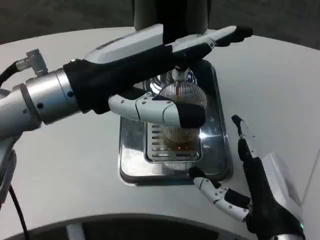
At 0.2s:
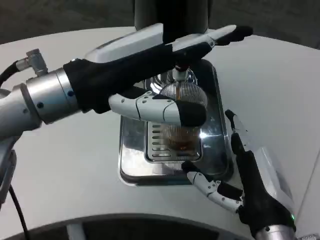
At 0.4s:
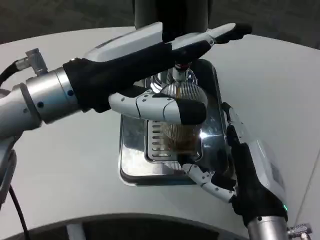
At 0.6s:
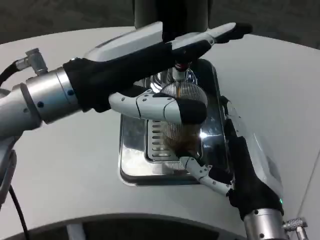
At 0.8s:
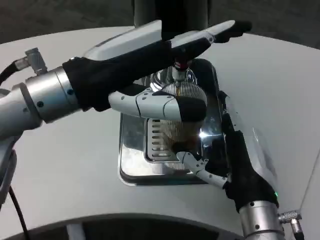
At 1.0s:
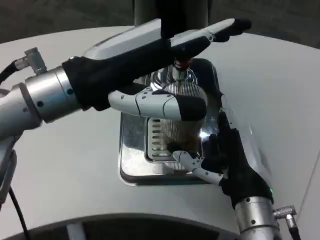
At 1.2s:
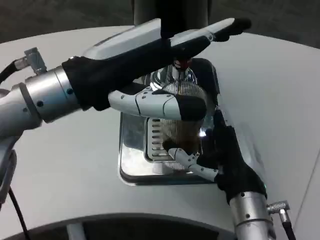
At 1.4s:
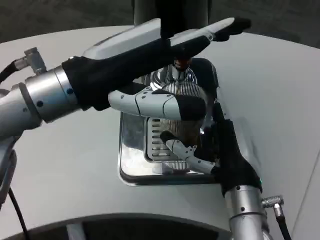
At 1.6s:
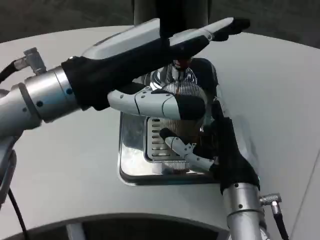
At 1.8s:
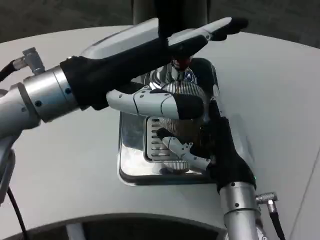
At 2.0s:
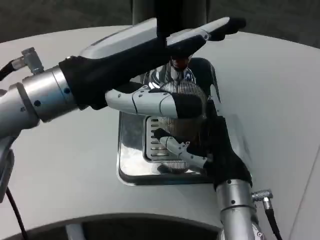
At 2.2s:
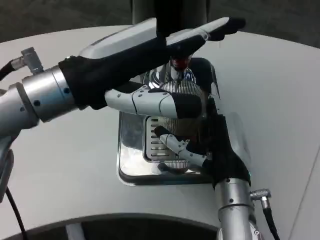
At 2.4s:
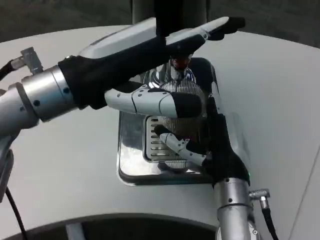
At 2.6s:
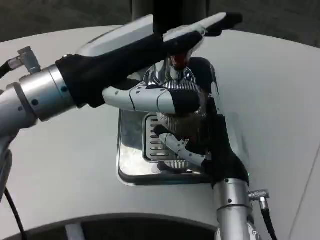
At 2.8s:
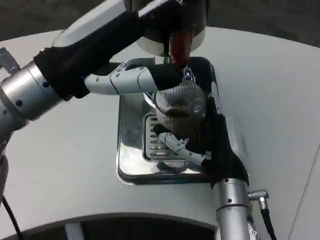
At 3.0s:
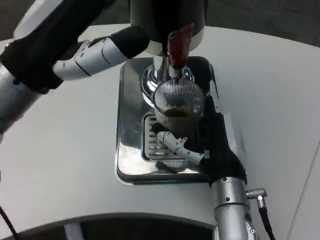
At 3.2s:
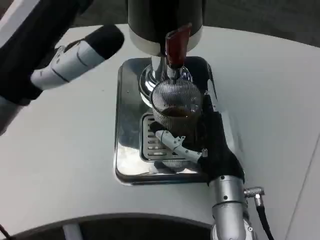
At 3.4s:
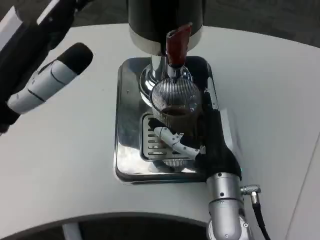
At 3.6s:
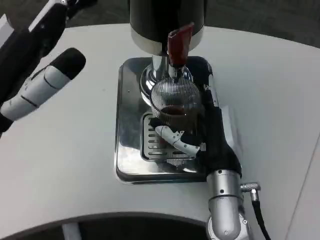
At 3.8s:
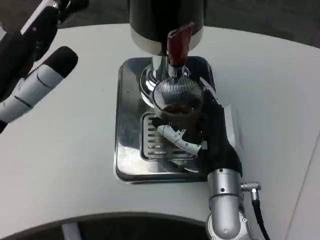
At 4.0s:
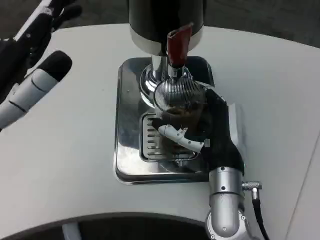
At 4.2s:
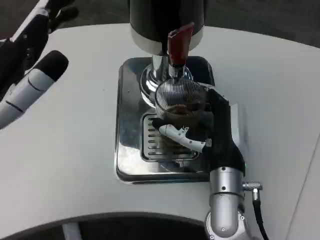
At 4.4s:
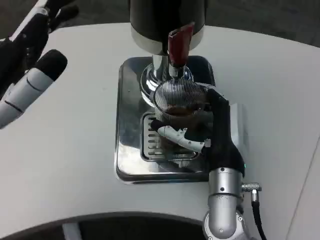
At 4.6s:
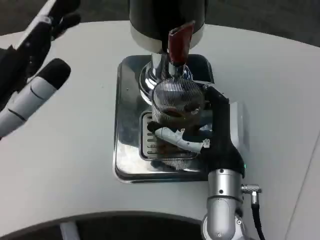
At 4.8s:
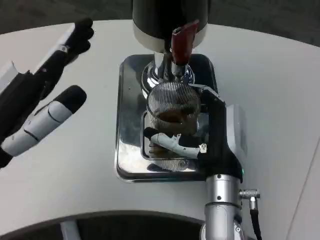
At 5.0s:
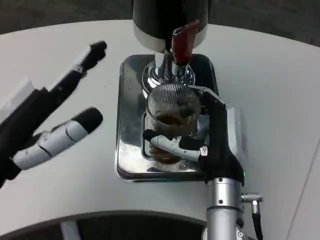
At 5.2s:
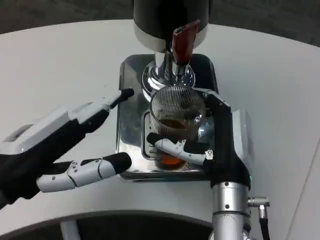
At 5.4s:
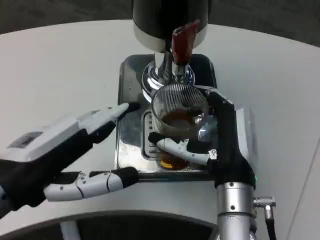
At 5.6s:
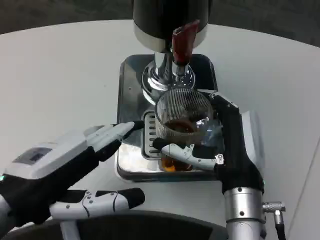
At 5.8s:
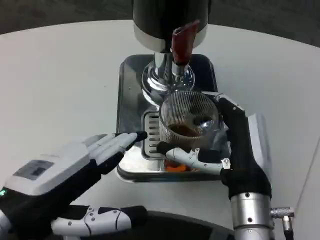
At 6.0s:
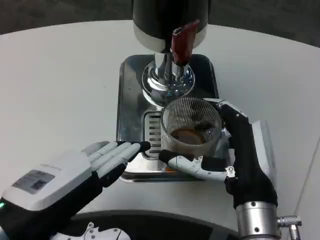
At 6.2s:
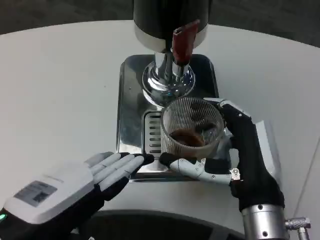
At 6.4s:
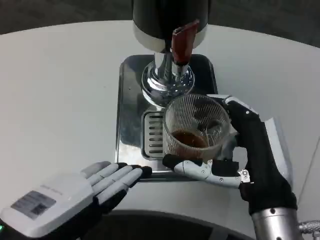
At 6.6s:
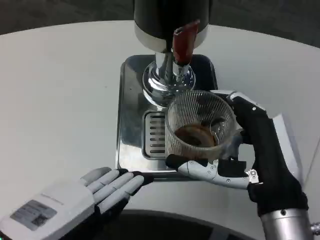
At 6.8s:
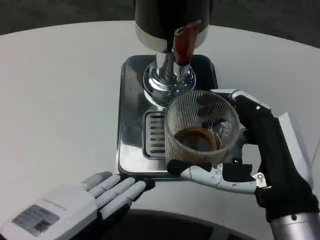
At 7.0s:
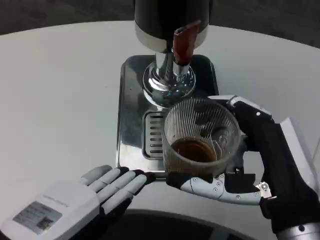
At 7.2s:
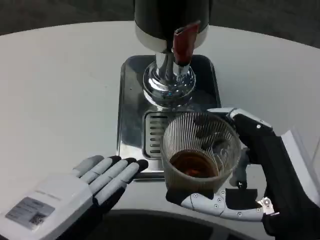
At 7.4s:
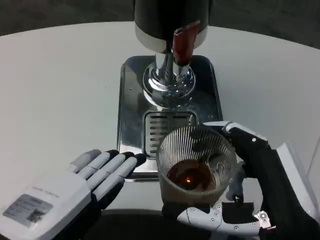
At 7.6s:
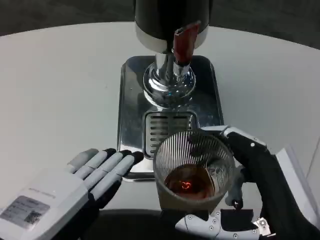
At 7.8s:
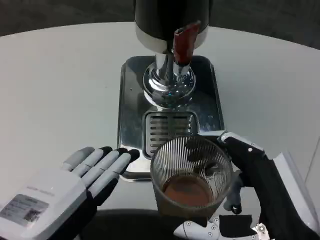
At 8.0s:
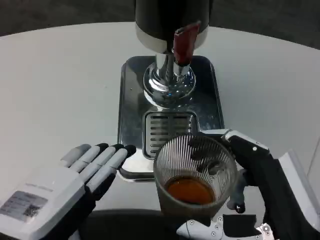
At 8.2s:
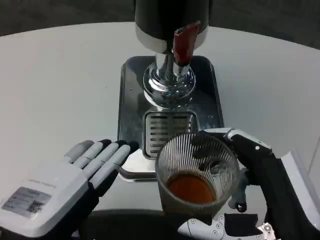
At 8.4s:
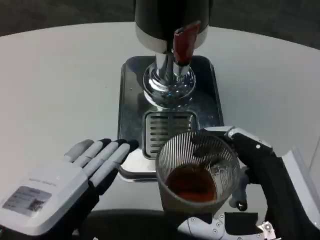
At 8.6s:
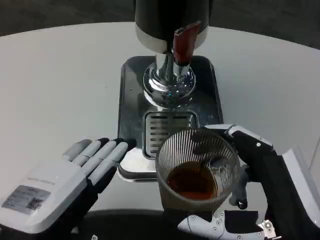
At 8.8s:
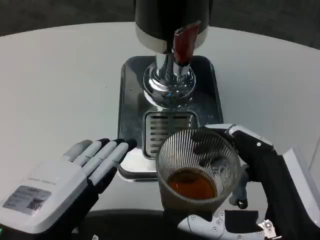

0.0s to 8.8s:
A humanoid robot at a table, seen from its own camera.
Task of the whole recording: Grasp the cup under the faucet to collect the drink, then remove the cup.
0.0s to 1.4s: The right hand goes about 5 cm forward.
3.0s to 4.4s: The left hand shifts approximately 5 cm backward.
4.4s to 5.8s: The left hand moves about 5 cm. Meanwhile the right hand shifts approximately 5 cm backward.
5.8s to 7.4s: The right hand goes about 10 cm backward. Meanwhile the left hand shifts about 5 cm backward.
7.4s to 8.8s: The hands stay close to where they were, moving slightly.

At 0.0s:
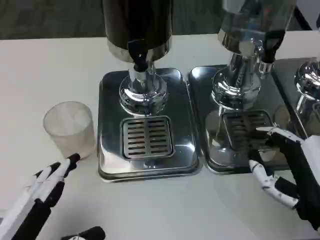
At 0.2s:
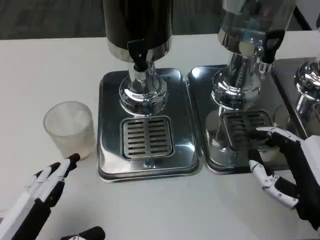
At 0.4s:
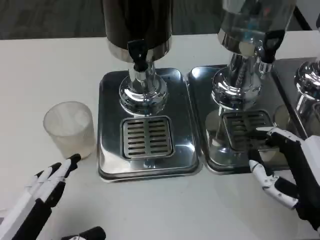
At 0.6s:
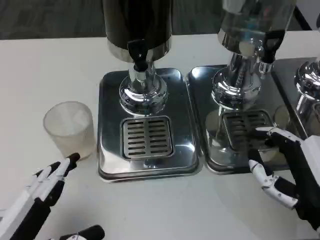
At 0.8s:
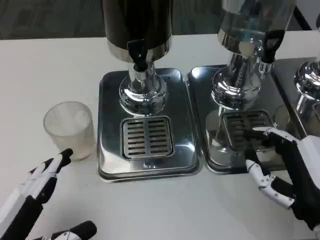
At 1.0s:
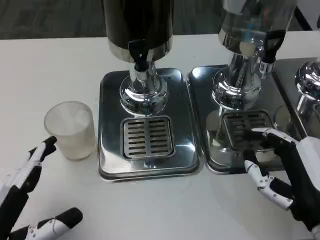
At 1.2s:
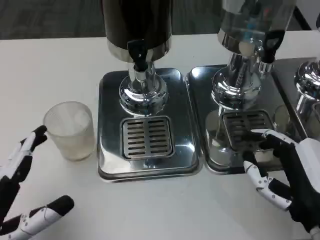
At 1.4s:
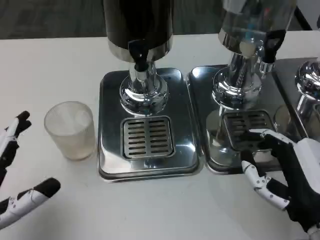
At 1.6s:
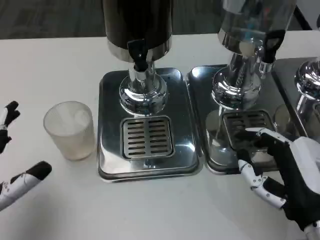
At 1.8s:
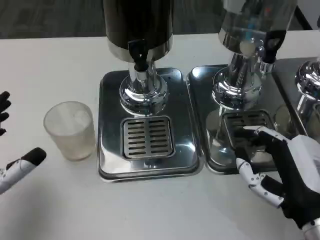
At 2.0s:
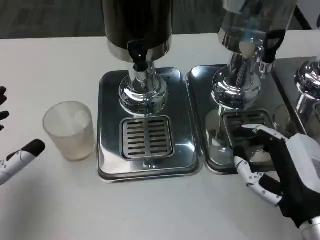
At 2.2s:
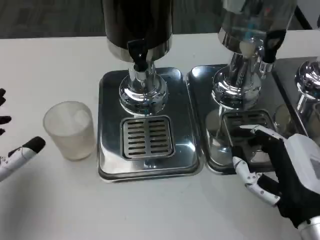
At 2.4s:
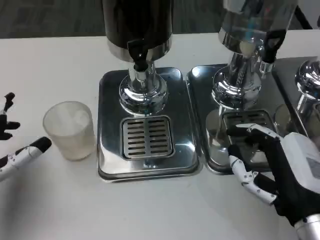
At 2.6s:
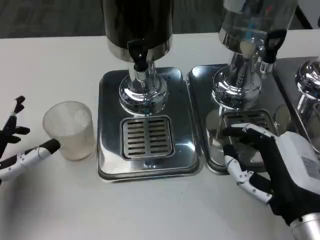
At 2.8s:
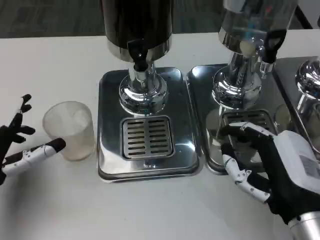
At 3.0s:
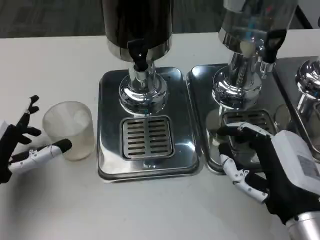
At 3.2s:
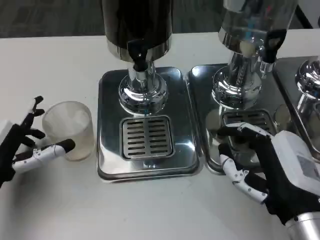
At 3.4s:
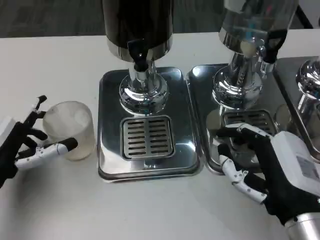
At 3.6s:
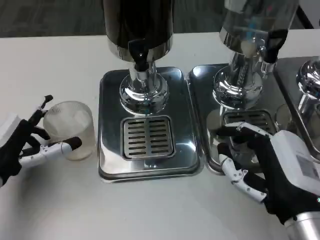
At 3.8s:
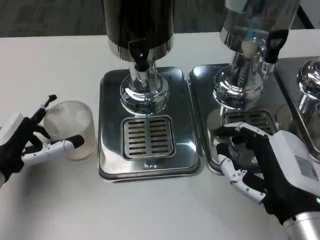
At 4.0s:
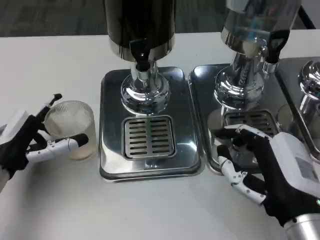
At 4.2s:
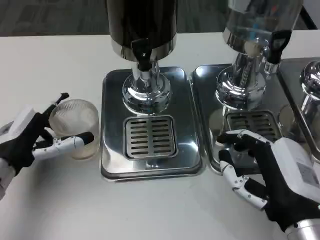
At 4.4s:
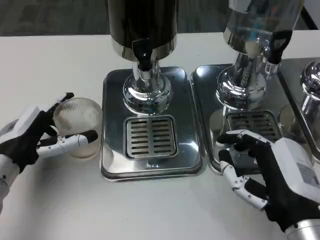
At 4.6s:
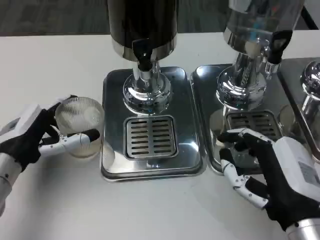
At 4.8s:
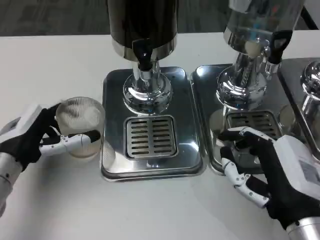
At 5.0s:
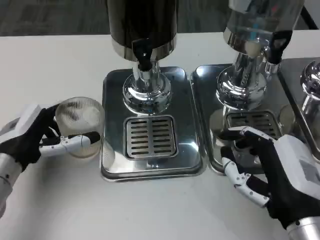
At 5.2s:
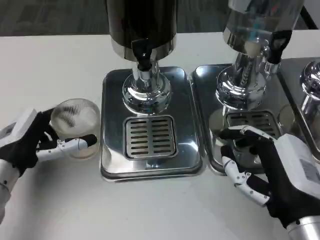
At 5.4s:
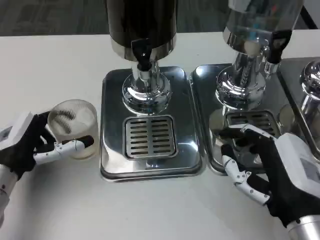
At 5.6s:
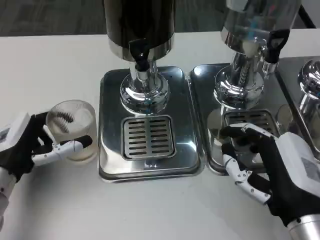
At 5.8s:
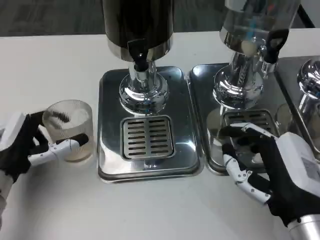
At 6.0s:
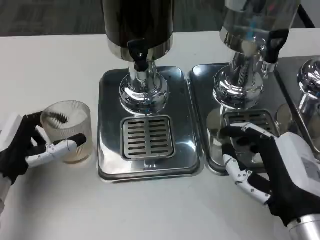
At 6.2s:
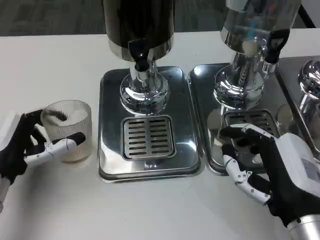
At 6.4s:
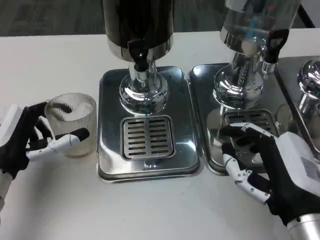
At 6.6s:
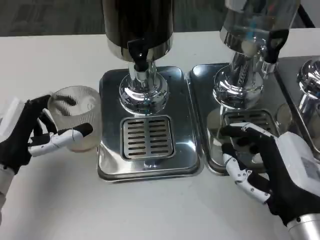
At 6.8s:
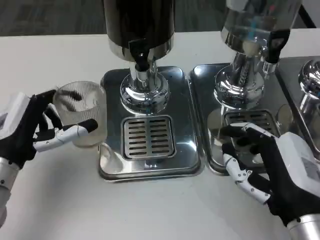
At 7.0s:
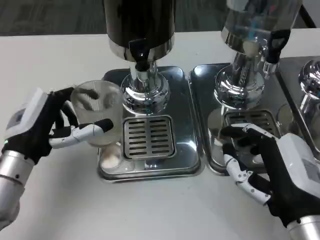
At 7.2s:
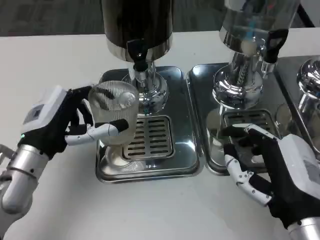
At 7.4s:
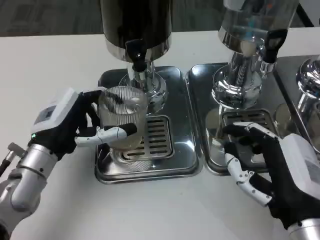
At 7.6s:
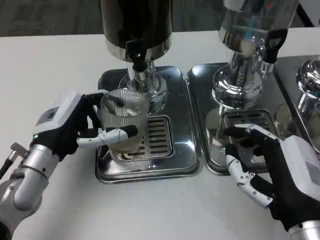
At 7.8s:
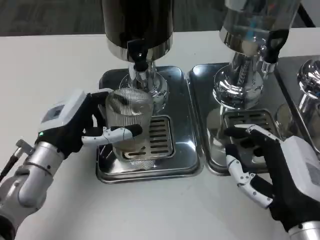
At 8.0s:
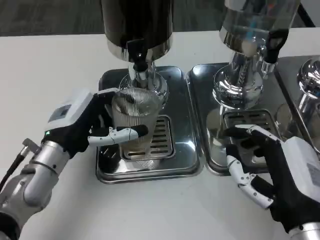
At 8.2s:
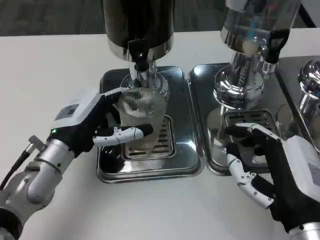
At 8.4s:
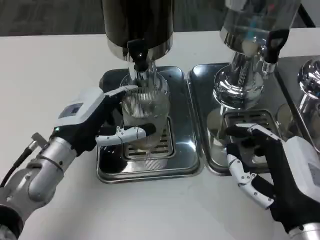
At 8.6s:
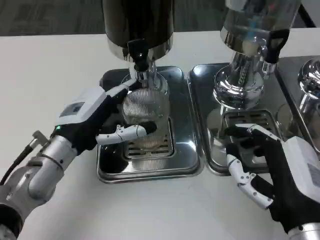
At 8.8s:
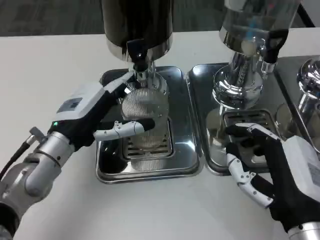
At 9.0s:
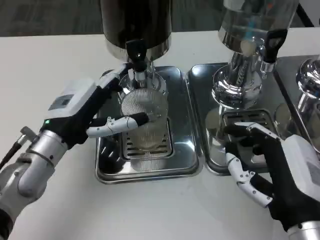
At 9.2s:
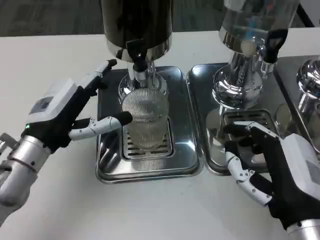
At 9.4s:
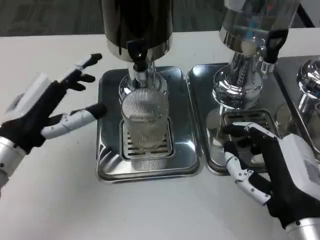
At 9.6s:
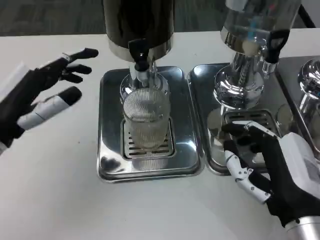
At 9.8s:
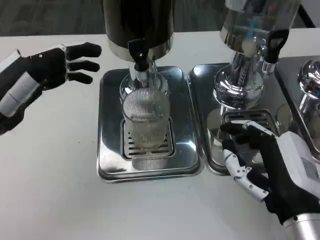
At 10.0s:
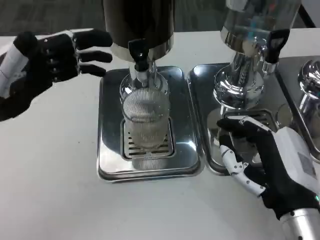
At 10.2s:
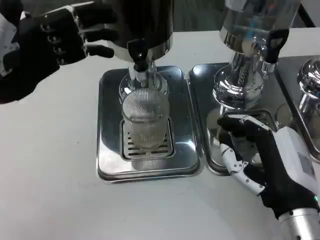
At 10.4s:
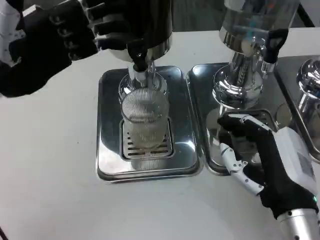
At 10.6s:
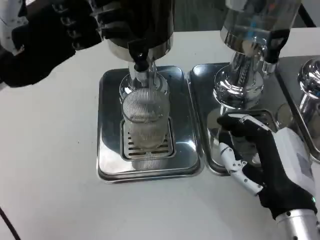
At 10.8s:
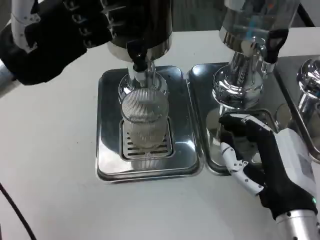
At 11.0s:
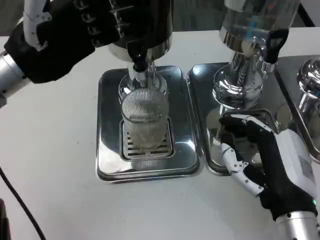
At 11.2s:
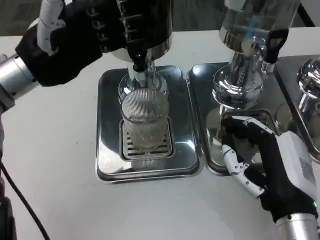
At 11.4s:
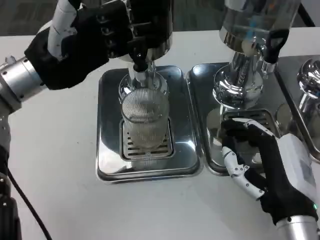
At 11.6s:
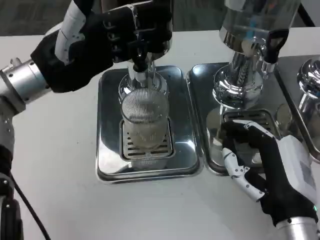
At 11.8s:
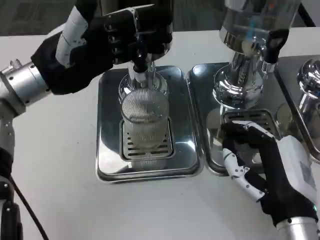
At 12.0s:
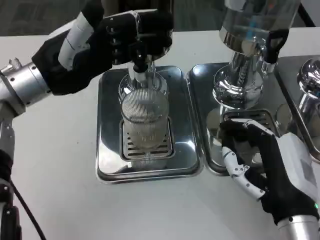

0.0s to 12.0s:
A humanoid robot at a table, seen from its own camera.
Task of the whole recording: Grasp the cup under the faucet to collect the drink, then remove the cup.
0.0s to 1.6s: The left hand travels forward by roughly 5 cm.
1.6s to 3.0s: The left hand goes roughly 10 cm forward.
6.0s to 7.6s: The left hand is displaced to the right by some 5 cm.
7.6s to 9.0s: The hands stay close to where they were, moving slightly.
9.0s to 10.4s: The left hand is displaced upward and to the left by some 15 cm.
10.4s to 12.0s: The left hand ends up some 5 cm from where it was.

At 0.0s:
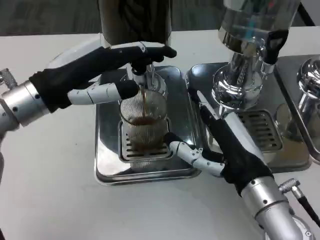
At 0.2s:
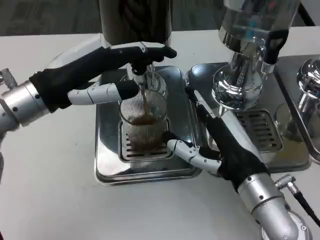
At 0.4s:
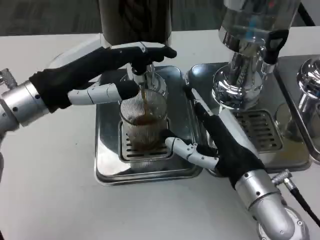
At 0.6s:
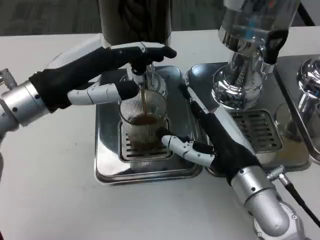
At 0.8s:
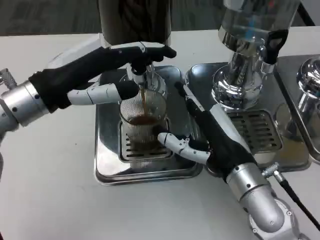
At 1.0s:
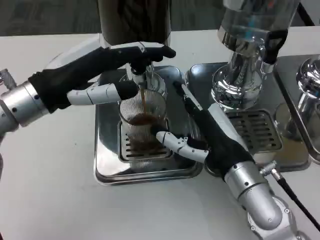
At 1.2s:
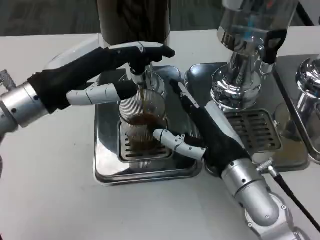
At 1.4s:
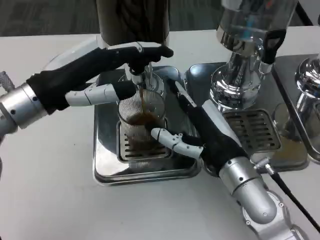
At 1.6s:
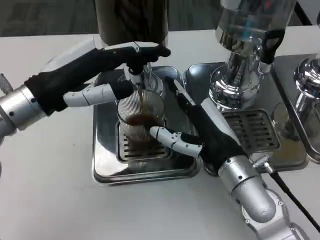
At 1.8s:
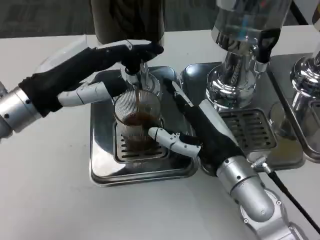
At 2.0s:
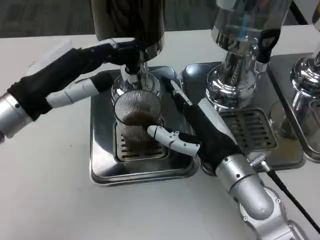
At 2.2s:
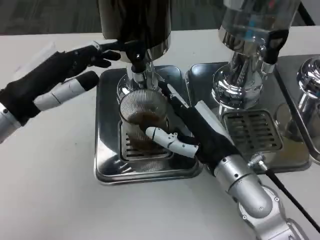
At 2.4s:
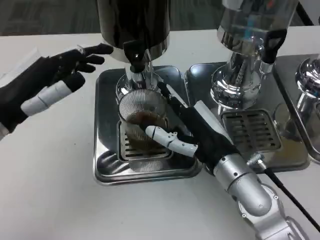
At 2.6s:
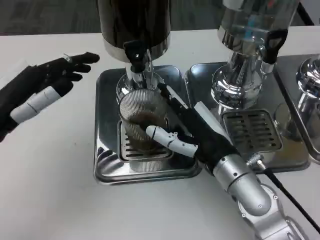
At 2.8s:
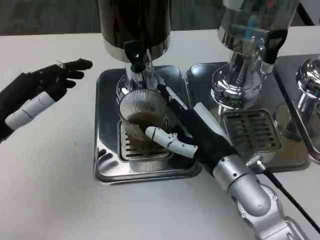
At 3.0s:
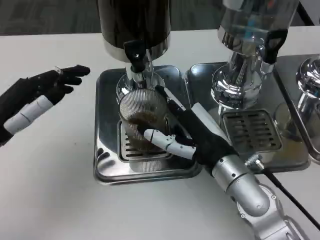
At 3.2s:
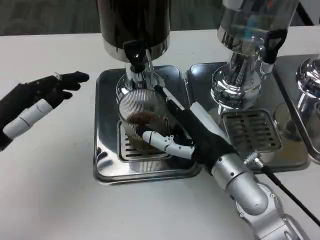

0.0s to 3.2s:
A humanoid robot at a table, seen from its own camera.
Task of the whole recording: Grasp the cup under the faucet to collect the drink, then remove the cup.
1.6s to 3.2s: The left hand goes some 10 cm to the left, backward and downward.
